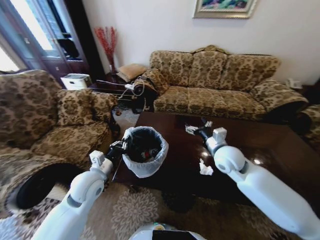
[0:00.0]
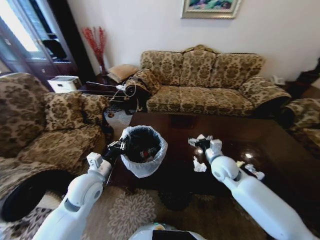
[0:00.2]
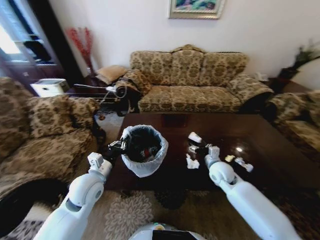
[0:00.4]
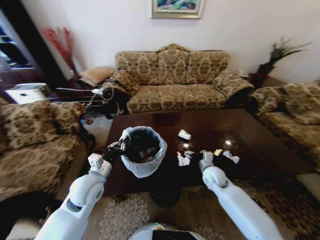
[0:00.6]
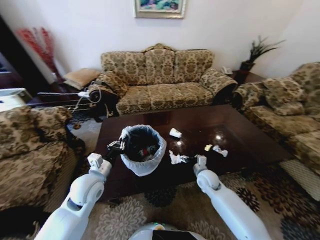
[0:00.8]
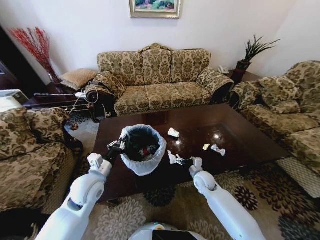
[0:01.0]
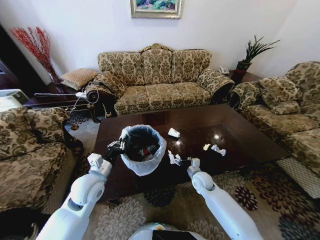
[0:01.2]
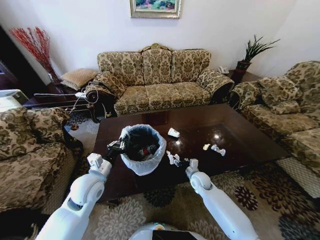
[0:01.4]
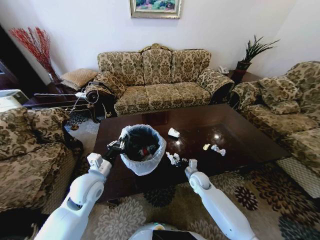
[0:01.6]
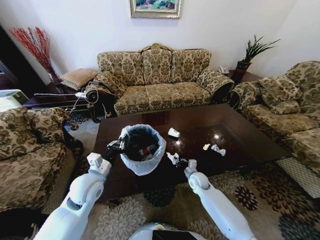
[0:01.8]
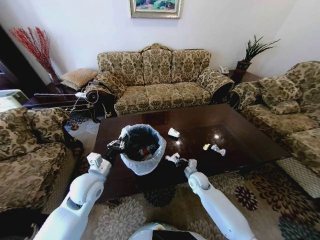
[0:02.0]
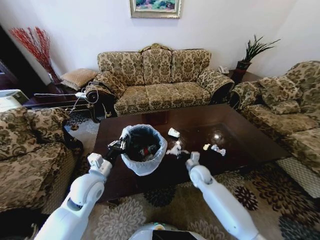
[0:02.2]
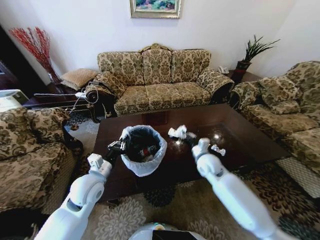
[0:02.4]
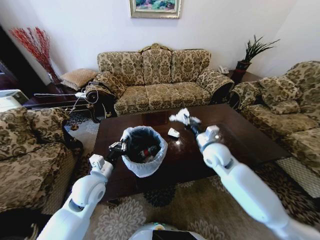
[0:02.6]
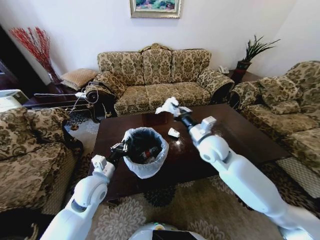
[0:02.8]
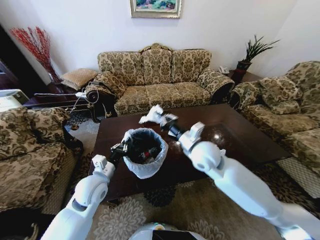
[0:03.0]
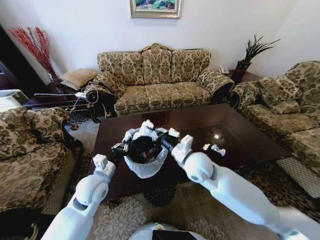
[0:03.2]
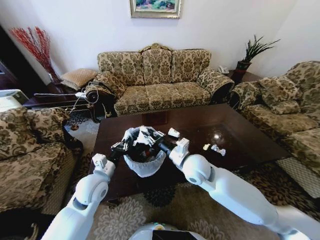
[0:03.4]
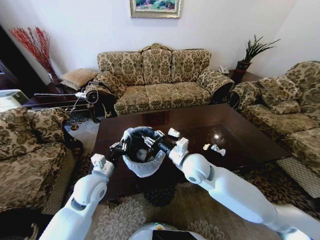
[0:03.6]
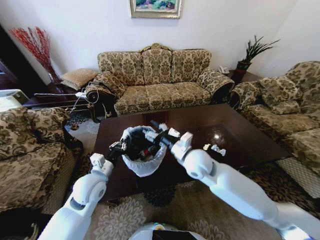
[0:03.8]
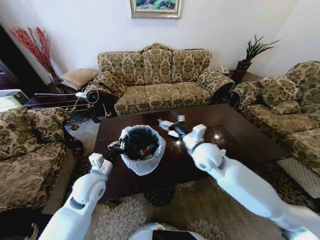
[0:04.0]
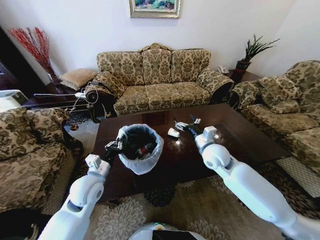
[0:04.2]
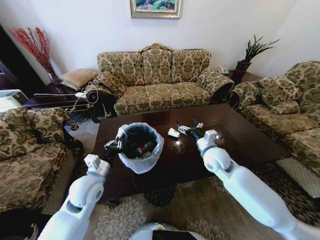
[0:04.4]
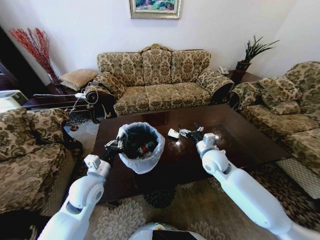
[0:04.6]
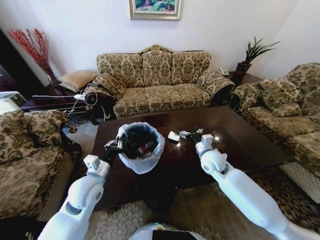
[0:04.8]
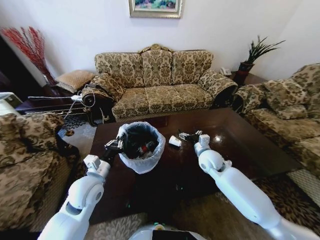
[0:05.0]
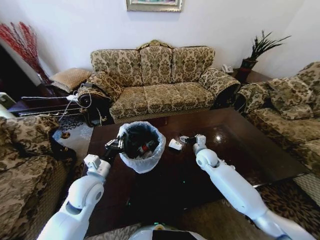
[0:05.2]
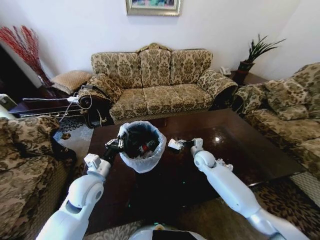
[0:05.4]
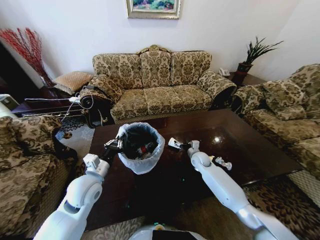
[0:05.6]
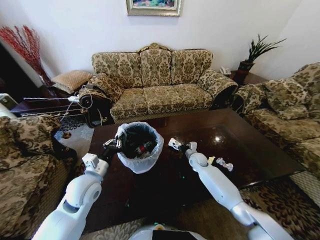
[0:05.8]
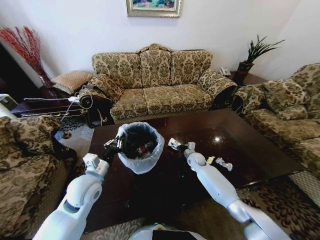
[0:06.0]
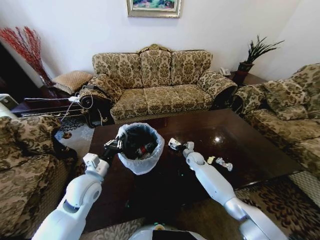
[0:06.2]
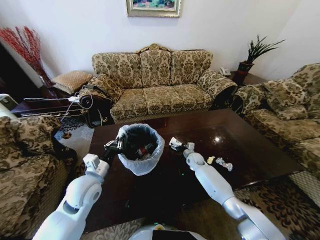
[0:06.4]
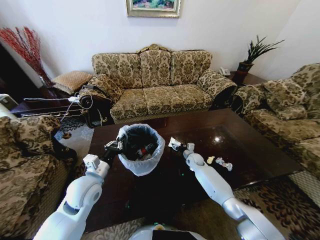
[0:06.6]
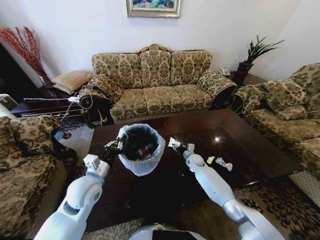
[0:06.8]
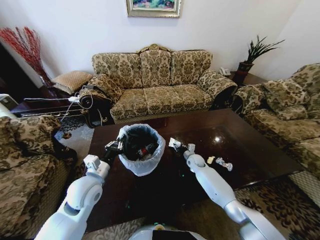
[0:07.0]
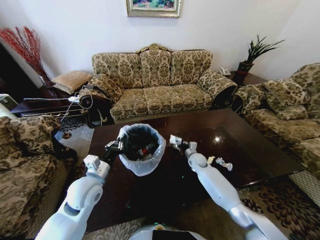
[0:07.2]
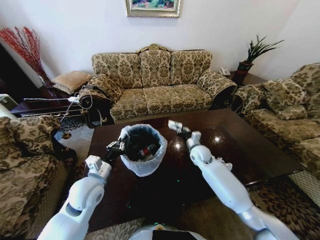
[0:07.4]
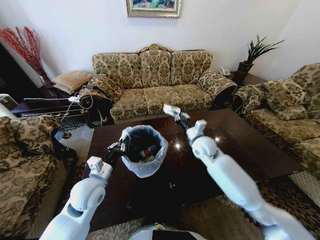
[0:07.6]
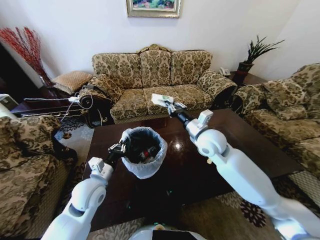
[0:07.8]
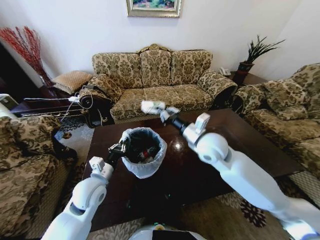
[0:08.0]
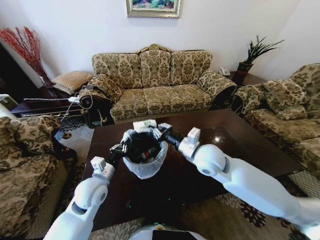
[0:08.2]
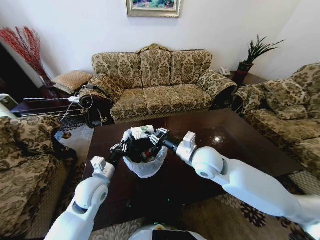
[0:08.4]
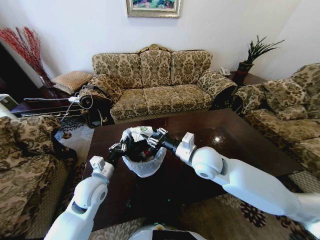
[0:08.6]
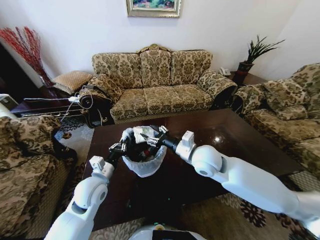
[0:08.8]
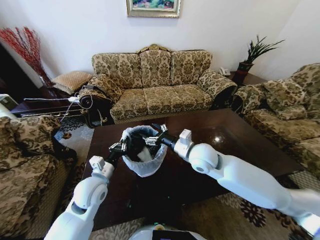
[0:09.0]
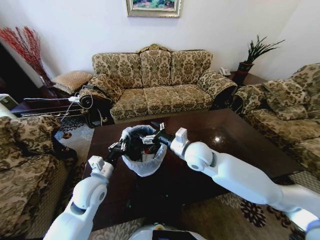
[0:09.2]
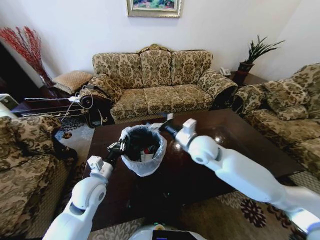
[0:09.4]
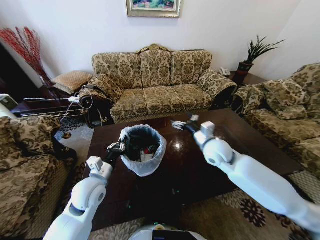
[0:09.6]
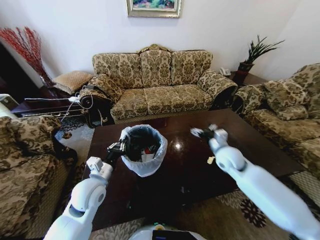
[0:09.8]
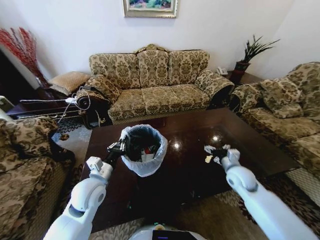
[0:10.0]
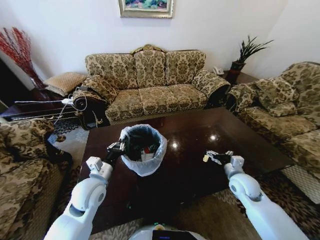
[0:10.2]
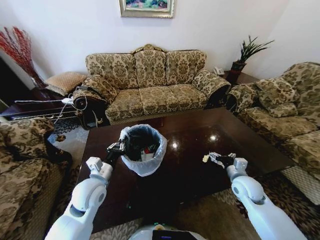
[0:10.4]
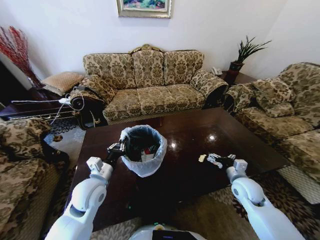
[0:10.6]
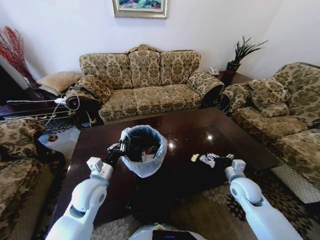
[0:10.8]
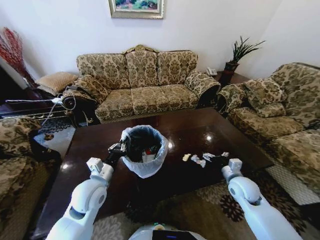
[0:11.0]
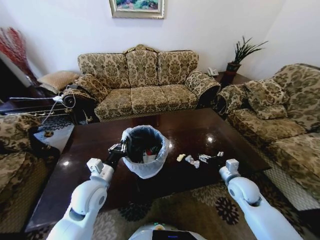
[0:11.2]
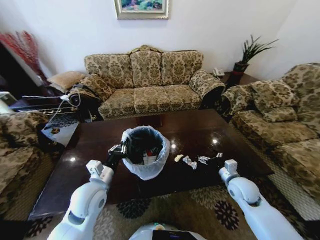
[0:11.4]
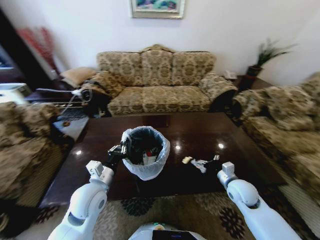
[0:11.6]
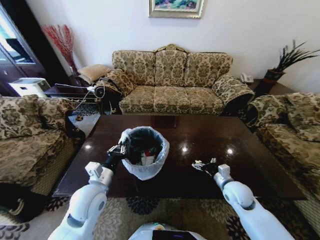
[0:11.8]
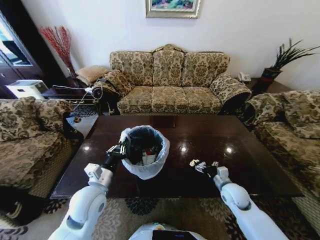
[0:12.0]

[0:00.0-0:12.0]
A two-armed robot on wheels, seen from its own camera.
Task of the whole recording: Move to the front of the table and place the trash on the table into the trash bin.
0:00.0 to 0:01.6: The right gripper shifts roughly 25 cm downward, and closes up.
0:01.6 to 0:03.0: The right gripper travels upward by some 25 cm, and closes.
0:03.0 to 0:04.4: The right gripper moves to the right and downward, some 10 cm, and opens its fingers.
0:04.4 to 0:06.0: The right gripper is displaced downward and forward by about 20 cm.
0:06.0 to 0:07.6: The right gripper goes roughly 20 cm upward, and closes.
0:07.6 to 0:09.0: The right gripper heads backward, covering about 10 cm, and opens.
0:09.0 to 0:10.4: The right gripper travels to the right and downward by approximately 25 cm.
0:10.4 to 0:12.0: The right gripper goes about 5 cm downward.

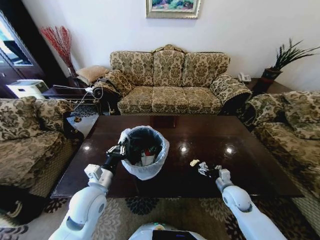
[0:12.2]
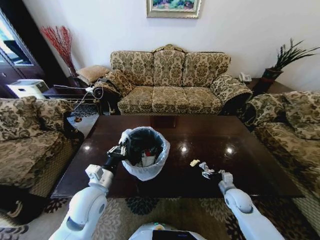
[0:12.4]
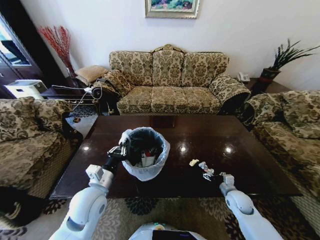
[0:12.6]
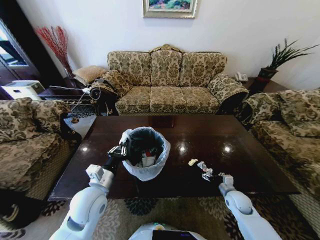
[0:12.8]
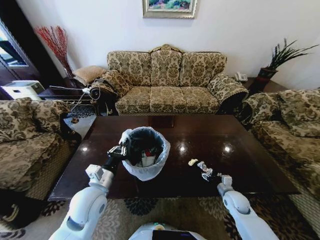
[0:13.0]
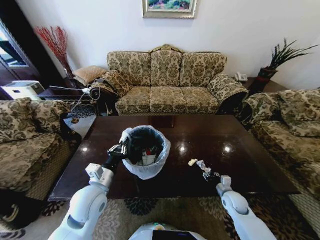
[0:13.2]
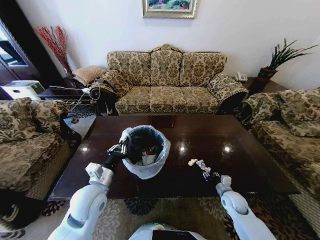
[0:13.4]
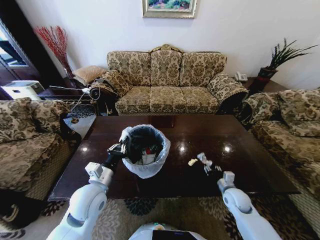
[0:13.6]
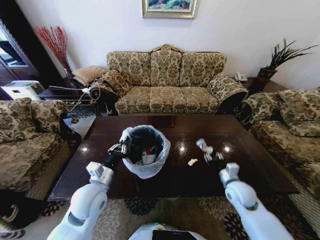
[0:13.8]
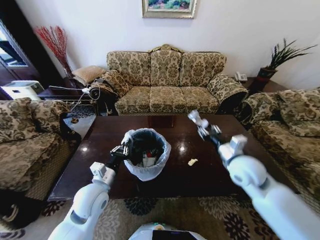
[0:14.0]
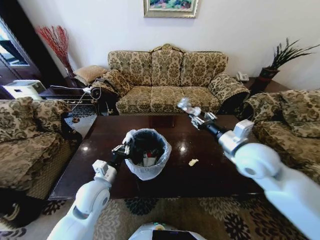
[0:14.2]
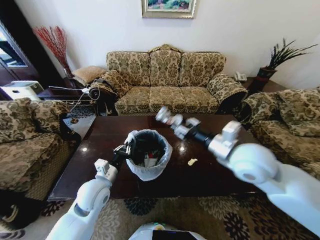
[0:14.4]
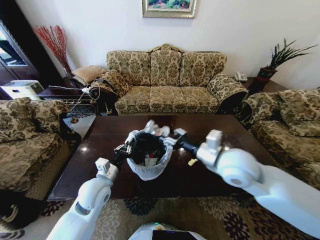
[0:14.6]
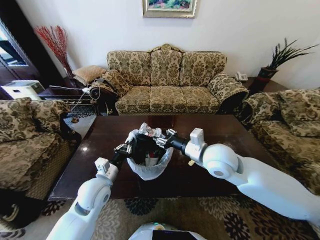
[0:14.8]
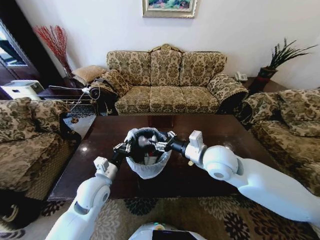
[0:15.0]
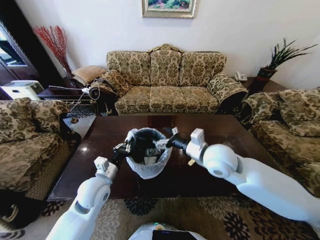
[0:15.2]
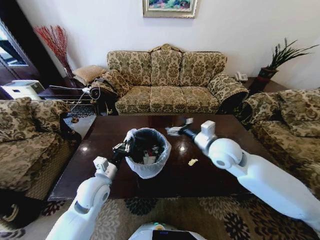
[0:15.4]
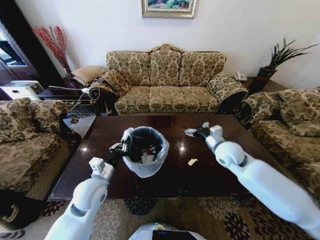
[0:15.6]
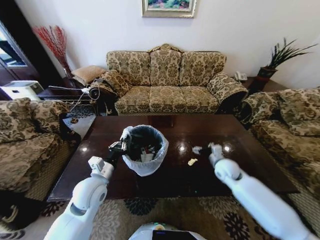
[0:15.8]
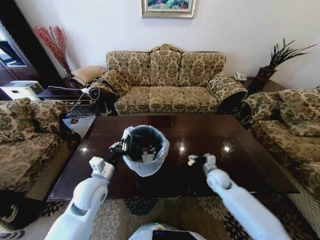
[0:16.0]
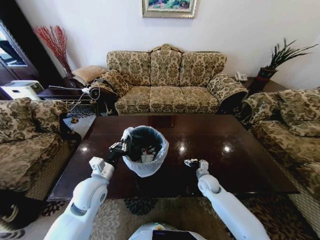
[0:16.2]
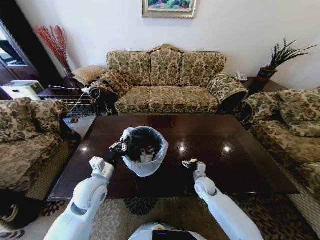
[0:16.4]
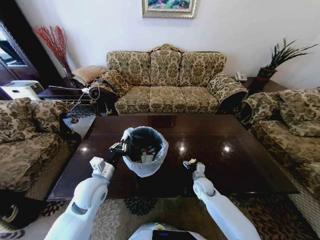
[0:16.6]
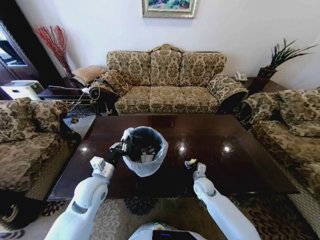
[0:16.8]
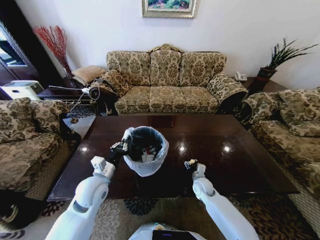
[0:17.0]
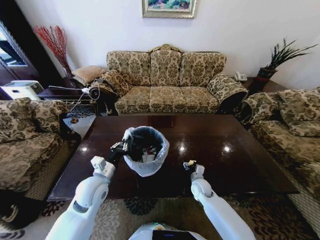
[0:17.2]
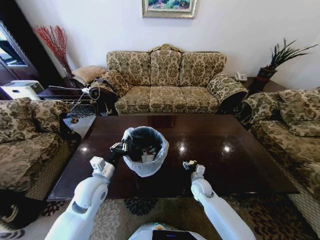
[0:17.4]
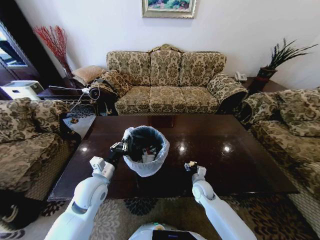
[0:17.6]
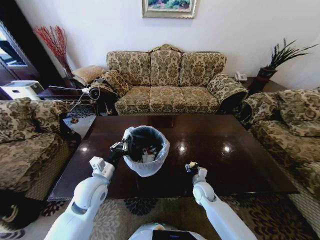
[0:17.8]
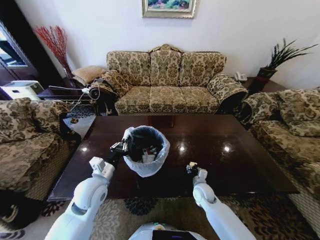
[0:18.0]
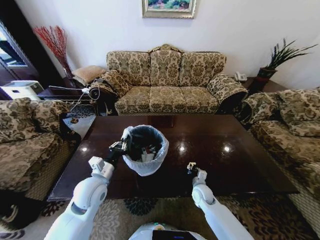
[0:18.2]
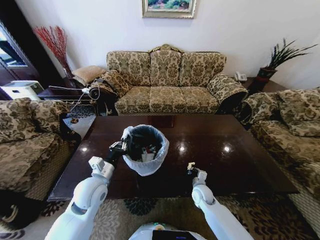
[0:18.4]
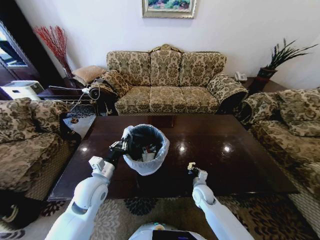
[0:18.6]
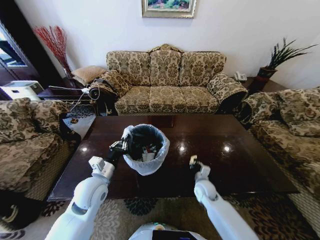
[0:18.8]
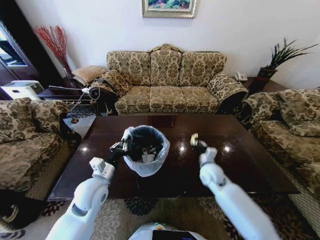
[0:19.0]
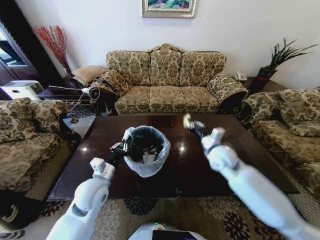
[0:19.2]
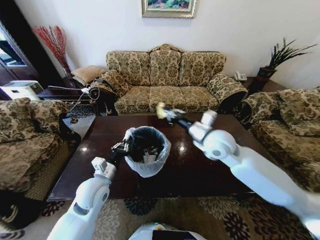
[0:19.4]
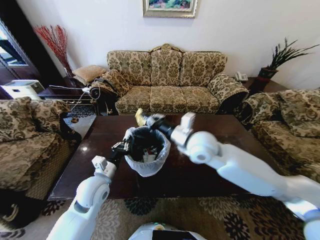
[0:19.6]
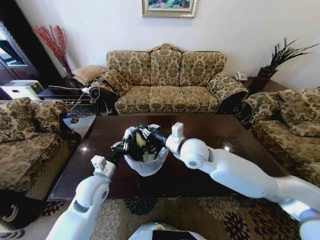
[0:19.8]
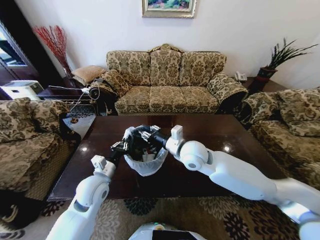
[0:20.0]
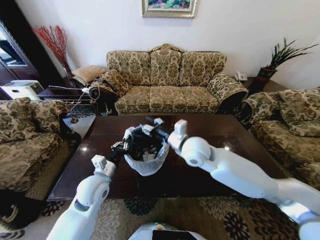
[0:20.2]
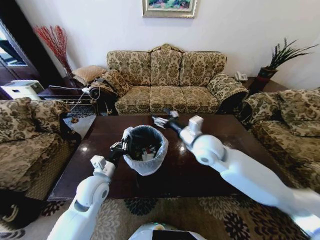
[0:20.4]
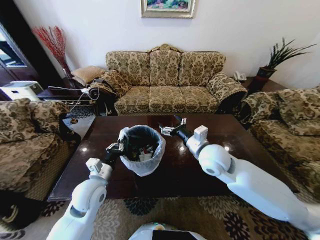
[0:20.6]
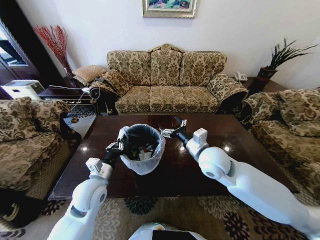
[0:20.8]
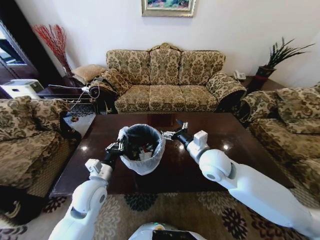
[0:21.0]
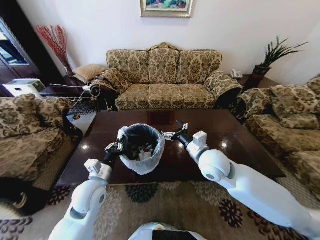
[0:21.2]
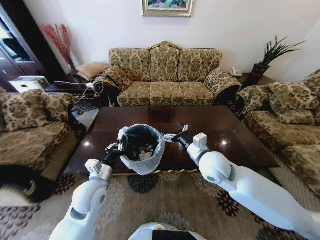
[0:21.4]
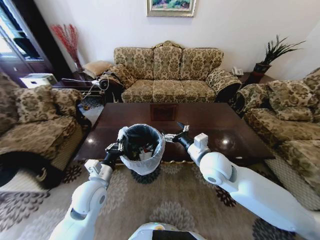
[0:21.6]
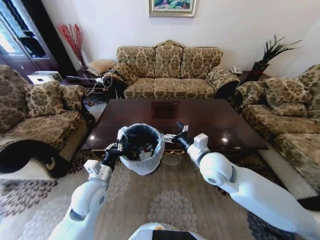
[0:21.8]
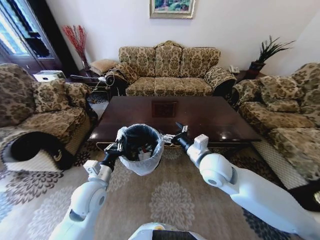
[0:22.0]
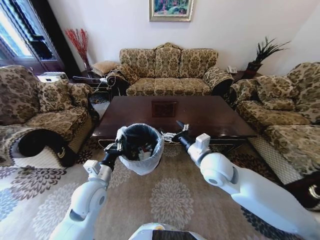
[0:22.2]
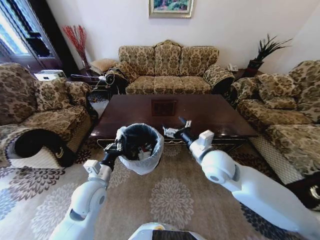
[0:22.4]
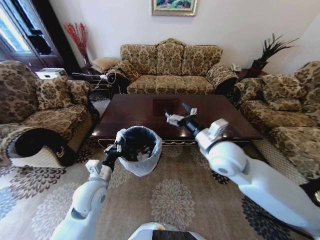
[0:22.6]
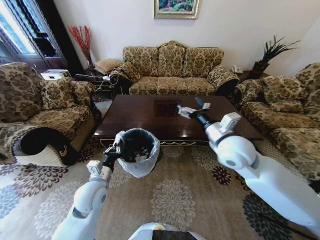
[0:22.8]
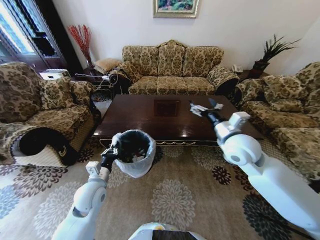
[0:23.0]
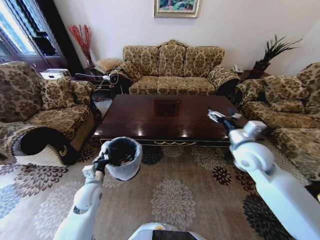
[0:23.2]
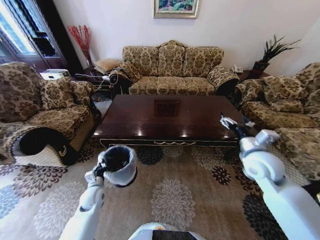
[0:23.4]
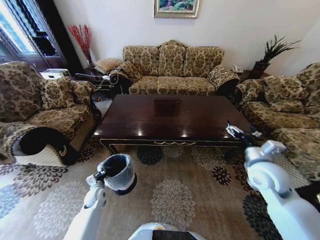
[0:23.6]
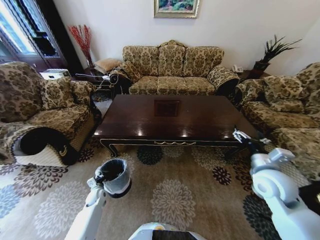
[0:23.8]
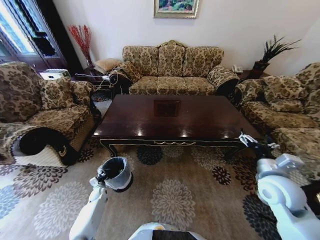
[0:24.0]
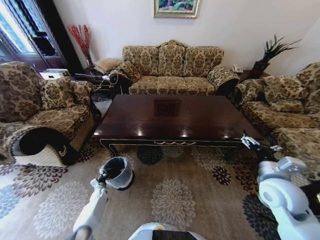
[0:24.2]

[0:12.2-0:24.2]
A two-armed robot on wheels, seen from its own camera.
Task of the whole recording: Move to the front of the table and place the trash on the table into the trash bin.
0:12.2 to 0:13.8: The right gripper moves upward, approximately 10 cm, and closes its fingers.
0:13.8 to 0:15.2: The right gripper shifts approximately 20 cm upward and to the left, and opens.
0:15.2 to 0:16.6: The right gripper shifts roughly 30 cm downward.
0:16.6 to 0:18.2: The right gripper closes its fingers.
0:18.2 to 0:19.8: The right gripper heads upward, covering about 30 cm.
0:19.8 to 0:21.2: The right gripper travels to the right by about 5 cm, and opens up.
0:21.2 to 0:22.6: The right gripper is displaced upward by roughly 5 cm.
0:22.6 to 0:24.2: The right gripper is displaced to the right and downward by roughly 20 cm. The left gripper travels downward and to the left by approximately 40 cm.
